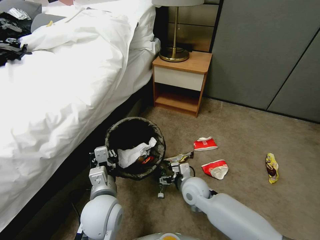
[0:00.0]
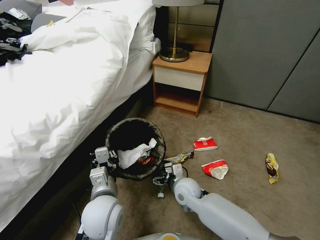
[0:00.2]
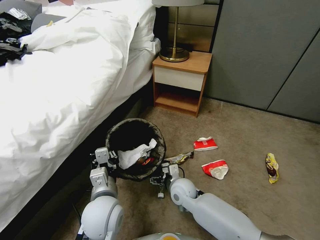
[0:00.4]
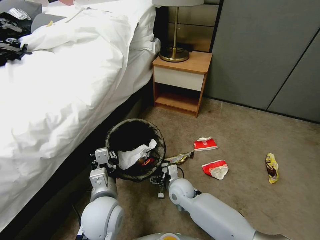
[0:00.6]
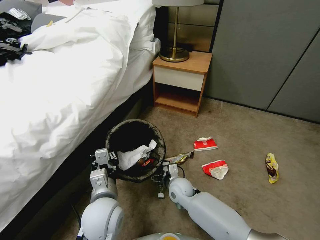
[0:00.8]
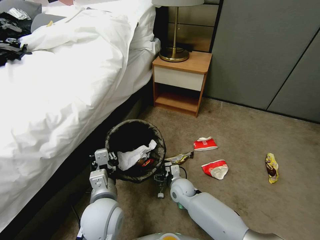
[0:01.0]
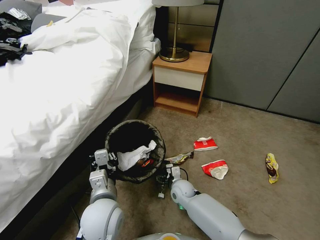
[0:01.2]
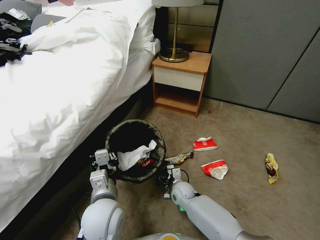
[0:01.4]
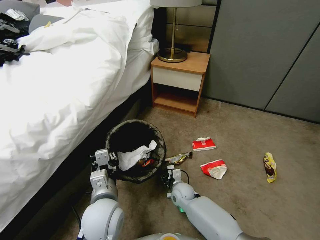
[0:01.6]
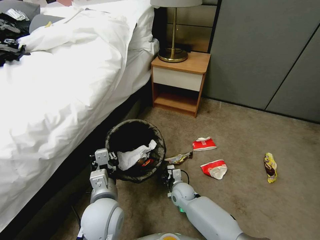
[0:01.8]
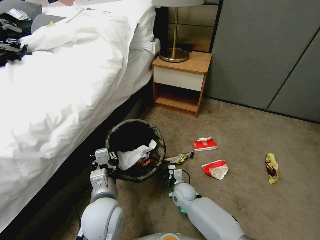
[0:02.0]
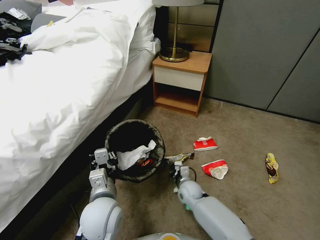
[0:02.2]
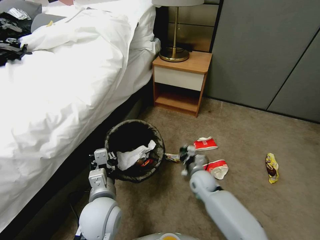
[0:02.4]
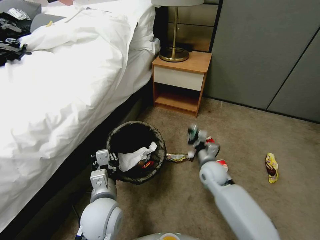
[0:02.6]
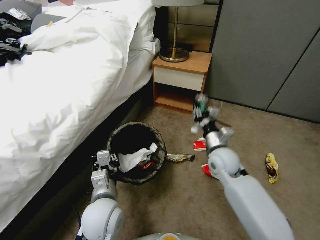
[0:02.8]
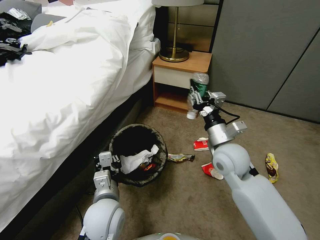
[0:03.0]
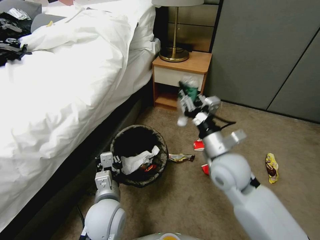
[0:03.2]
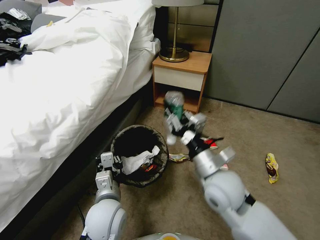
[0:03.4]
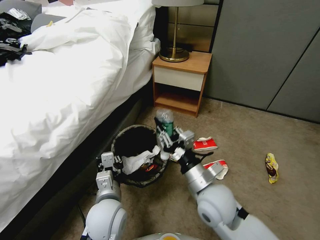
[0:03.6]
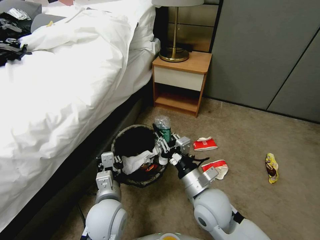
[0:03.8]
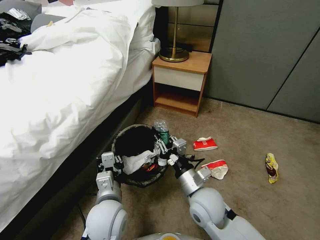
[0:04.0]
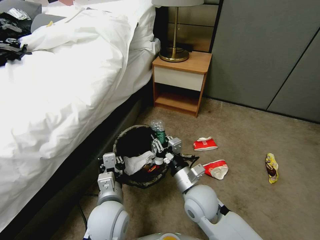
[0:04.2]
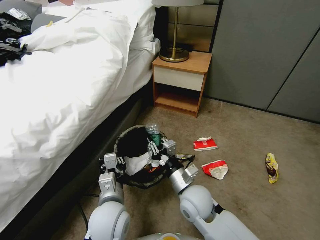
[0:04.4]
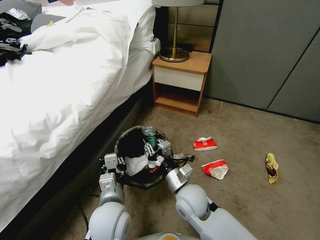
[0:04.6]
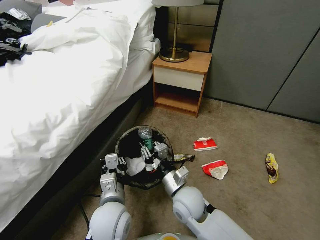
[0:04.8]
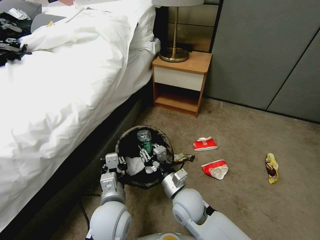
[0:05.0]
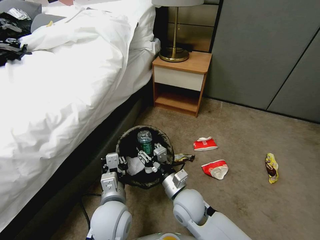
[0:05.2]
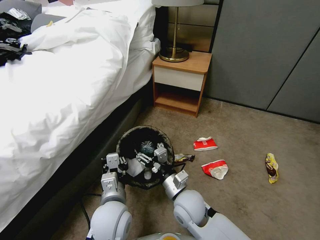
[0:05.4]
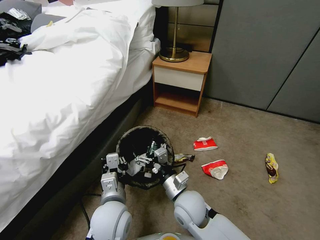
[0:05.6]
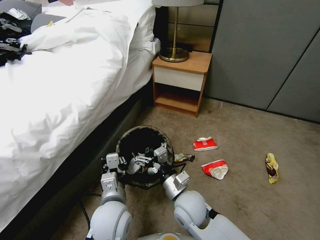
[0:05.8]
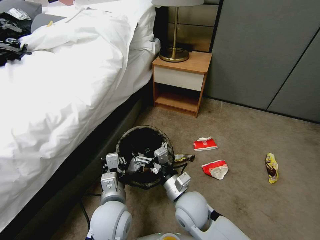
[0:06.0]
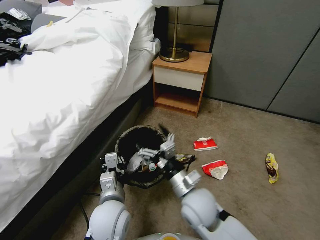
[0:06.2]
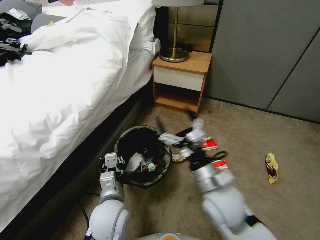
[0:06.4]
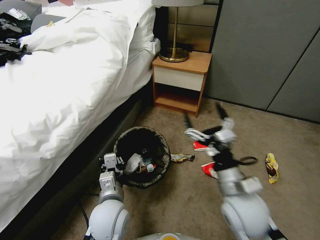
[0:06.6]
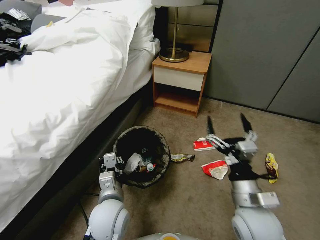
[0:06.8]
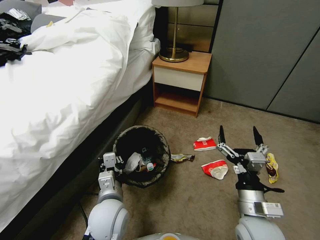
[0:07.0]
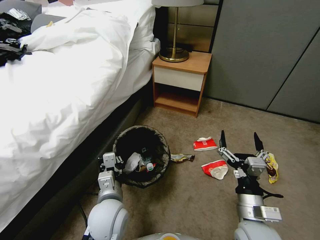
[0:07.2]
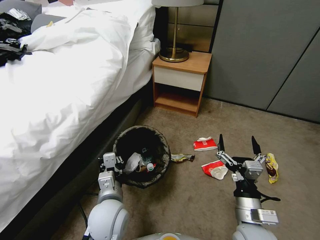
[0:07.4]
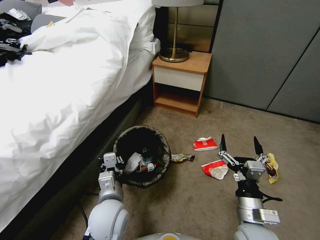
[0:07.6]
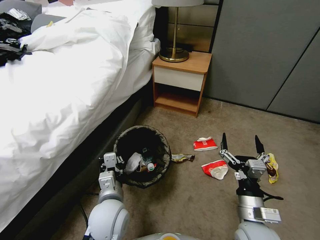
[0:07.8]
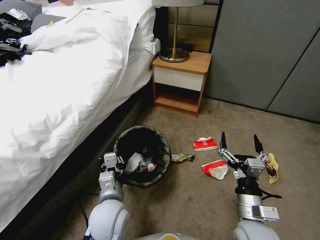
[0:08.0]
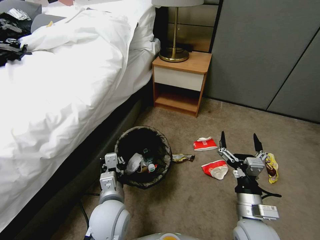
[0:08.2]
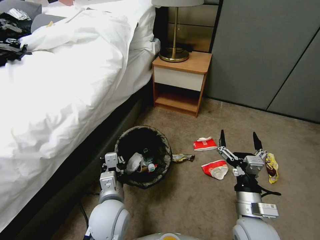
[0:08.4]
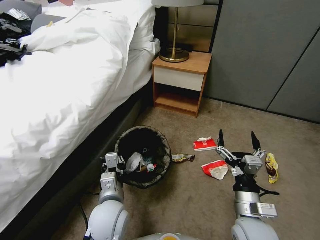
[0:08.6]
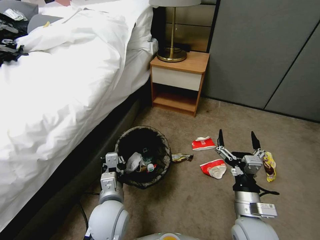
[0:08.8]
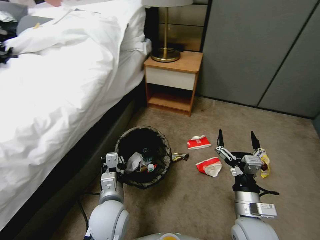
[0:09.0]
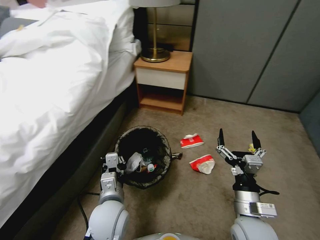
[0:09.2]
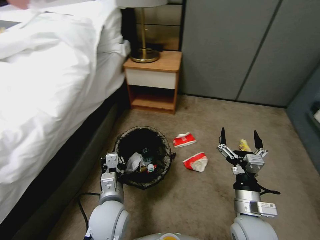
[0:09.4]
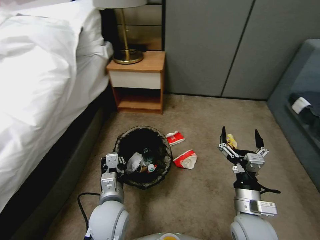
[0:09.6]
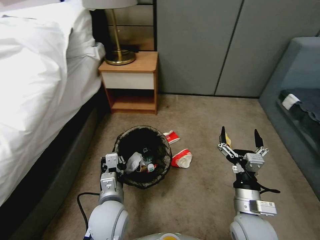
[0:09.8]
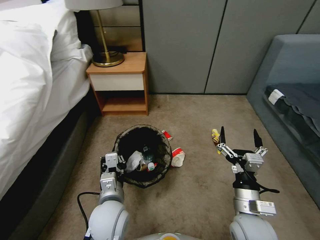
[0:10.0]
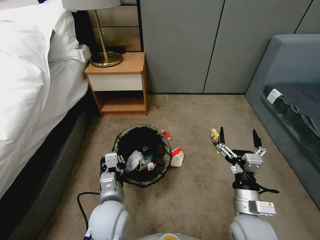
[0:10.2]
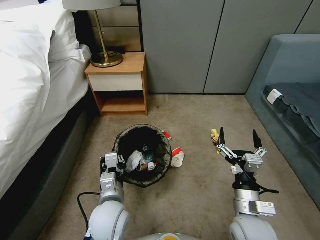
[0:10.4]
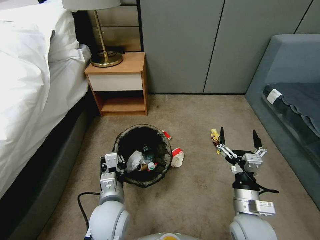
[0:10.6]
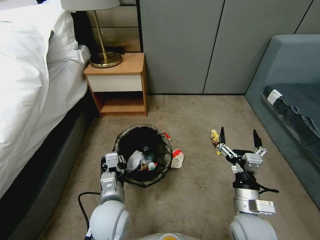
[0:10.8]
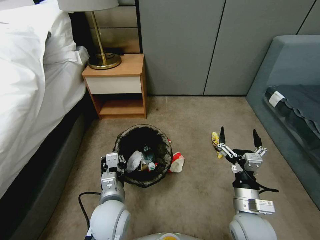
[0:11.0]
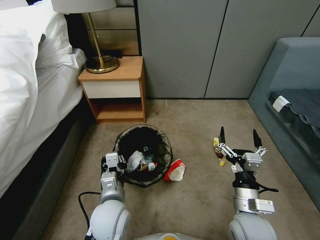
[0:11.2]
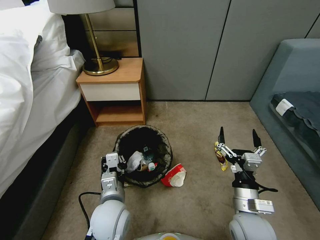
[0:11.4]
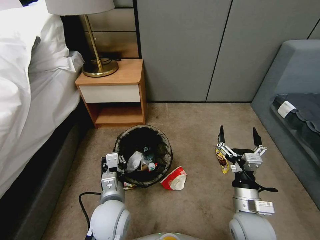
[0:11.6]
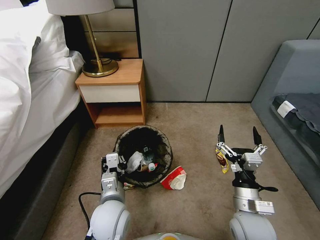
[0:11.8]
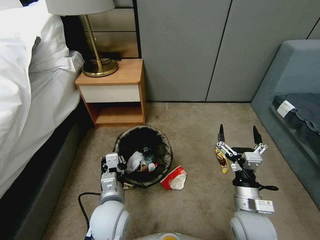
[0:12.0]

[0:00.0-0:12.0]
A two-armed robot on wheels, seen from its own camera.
Task of the whole recording: Pick up the trash bin, then pick up the garbage from the floor and place it into the trash bin.
0:00.0 to 0:01.6: The right gripper moves downward, approximately 10 cm, and closes up.
0:01.6 to 0:03.0: The right gripper goes approximately 30 cm upward.
0:03.0 to 0:04.4: The right gripper travels downward, to the left and backward by about 15 cm.
0:04.4 to 0:06.0: The right gripper opens its fingers.
0:06.0 to 0:07.6: The right gripper moves to the right and backward, approximately 15 cm.

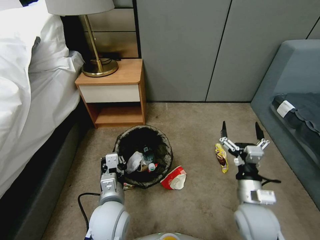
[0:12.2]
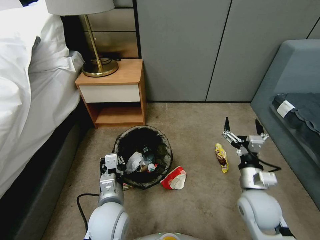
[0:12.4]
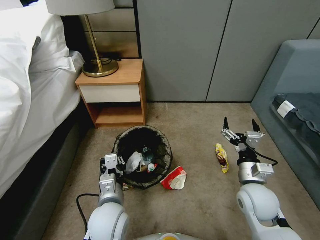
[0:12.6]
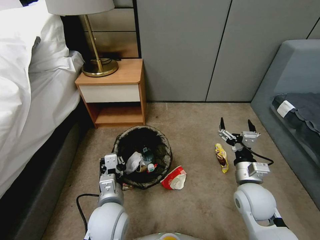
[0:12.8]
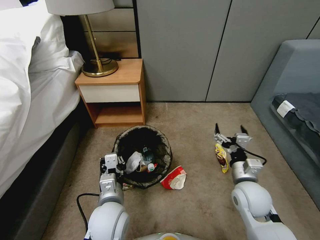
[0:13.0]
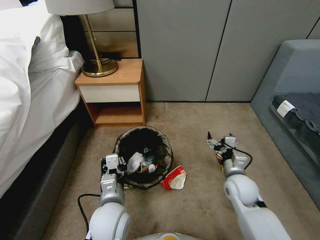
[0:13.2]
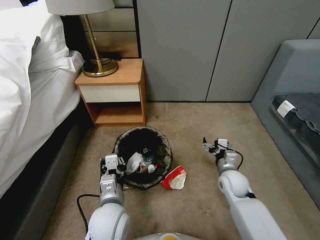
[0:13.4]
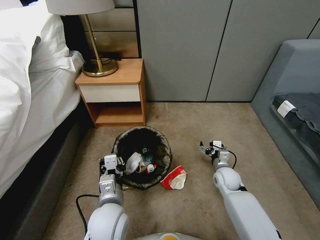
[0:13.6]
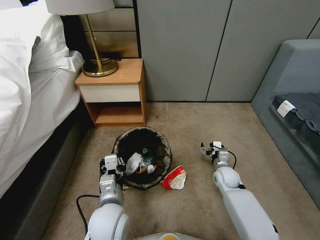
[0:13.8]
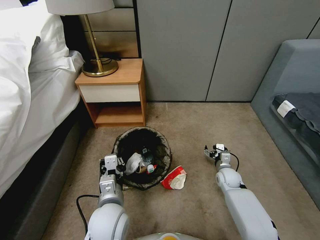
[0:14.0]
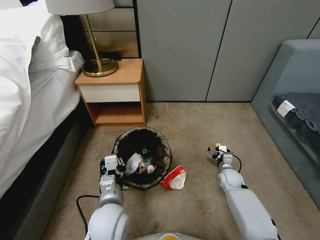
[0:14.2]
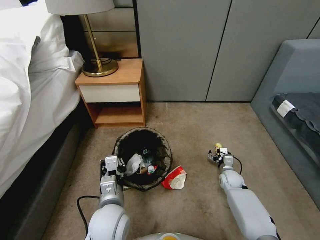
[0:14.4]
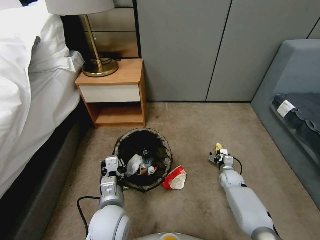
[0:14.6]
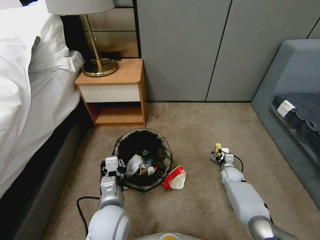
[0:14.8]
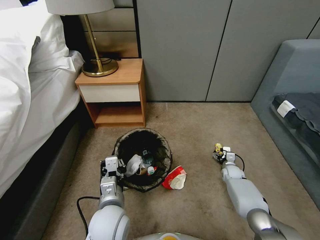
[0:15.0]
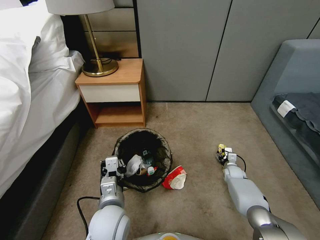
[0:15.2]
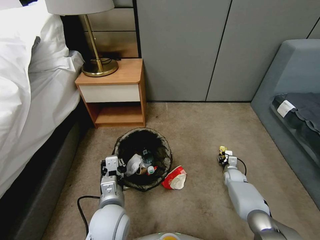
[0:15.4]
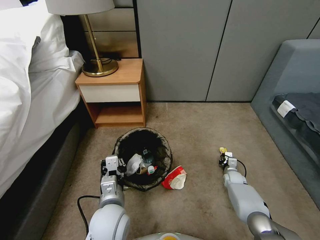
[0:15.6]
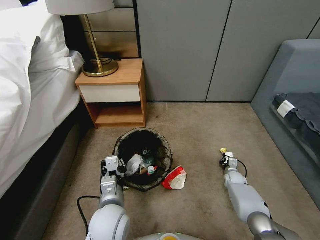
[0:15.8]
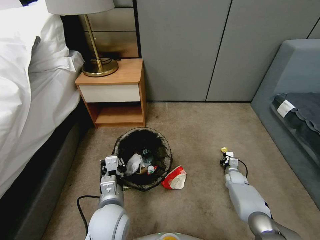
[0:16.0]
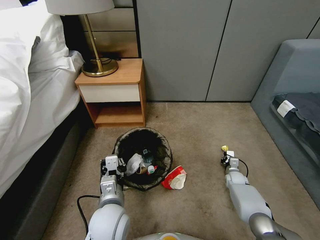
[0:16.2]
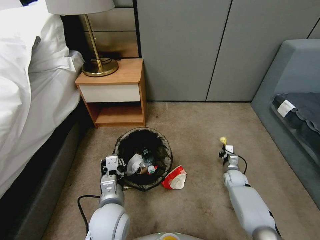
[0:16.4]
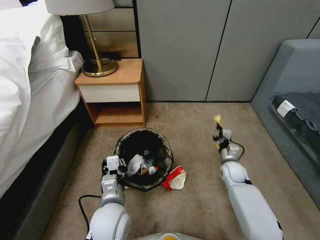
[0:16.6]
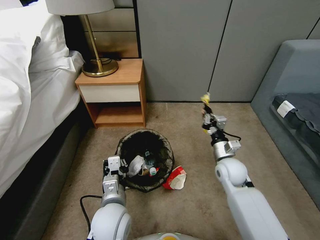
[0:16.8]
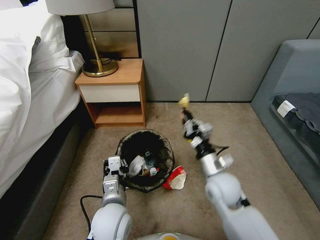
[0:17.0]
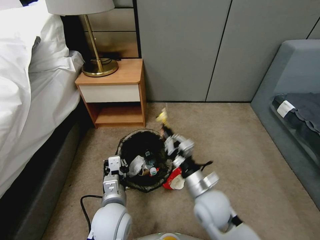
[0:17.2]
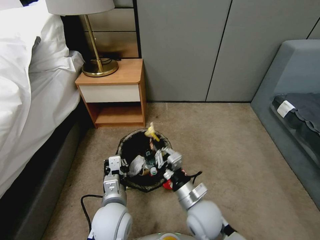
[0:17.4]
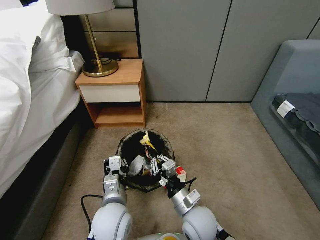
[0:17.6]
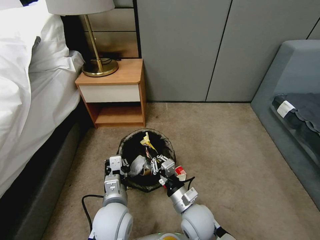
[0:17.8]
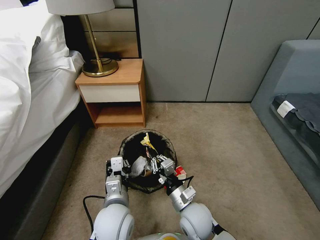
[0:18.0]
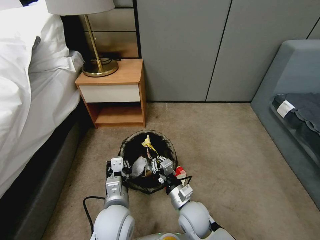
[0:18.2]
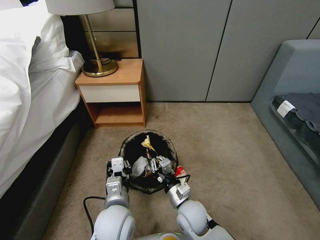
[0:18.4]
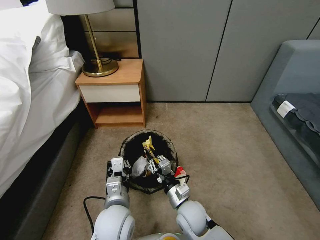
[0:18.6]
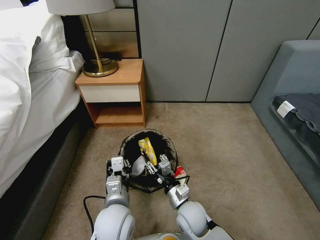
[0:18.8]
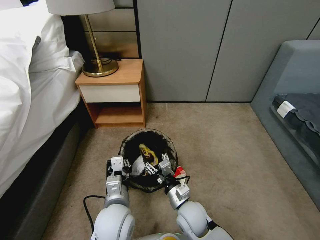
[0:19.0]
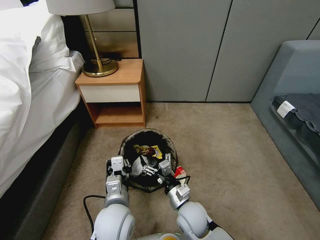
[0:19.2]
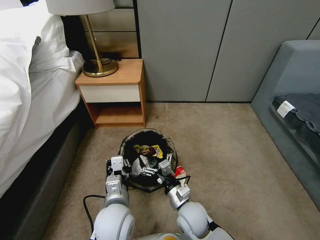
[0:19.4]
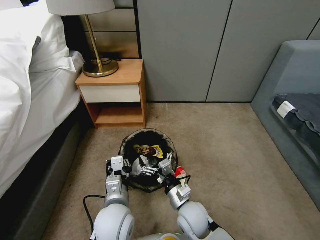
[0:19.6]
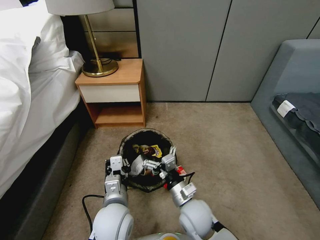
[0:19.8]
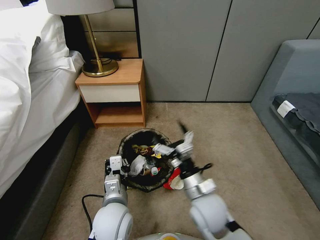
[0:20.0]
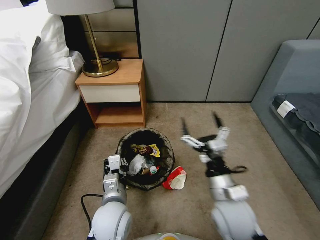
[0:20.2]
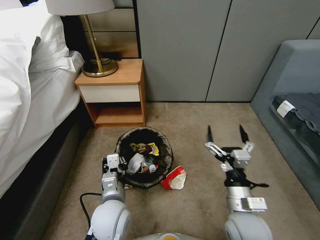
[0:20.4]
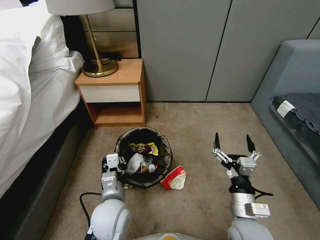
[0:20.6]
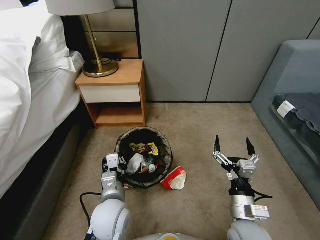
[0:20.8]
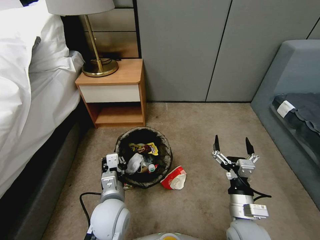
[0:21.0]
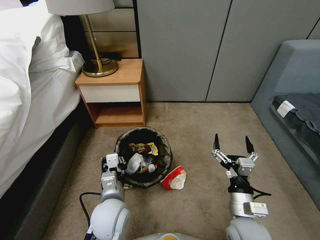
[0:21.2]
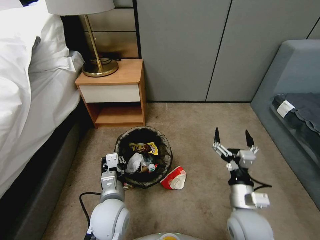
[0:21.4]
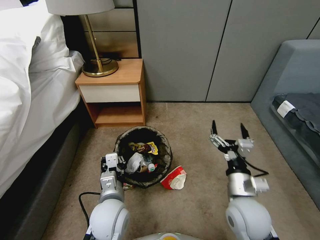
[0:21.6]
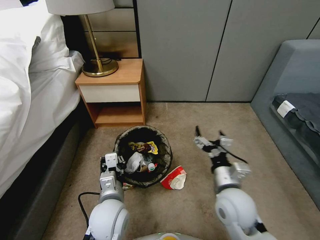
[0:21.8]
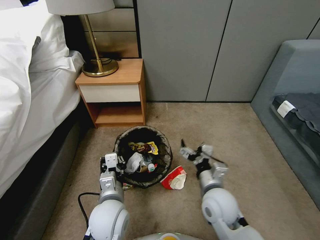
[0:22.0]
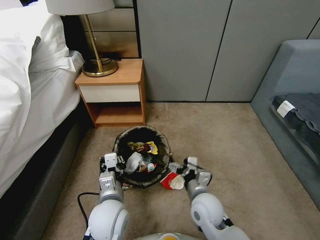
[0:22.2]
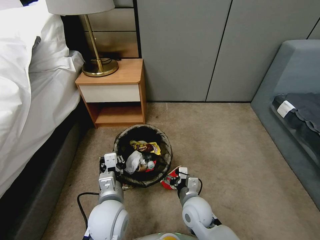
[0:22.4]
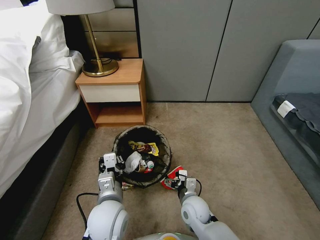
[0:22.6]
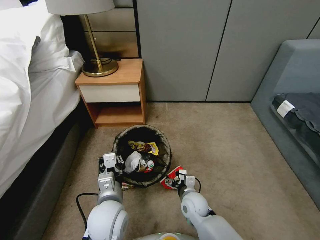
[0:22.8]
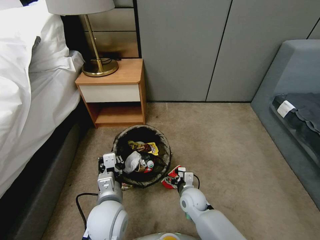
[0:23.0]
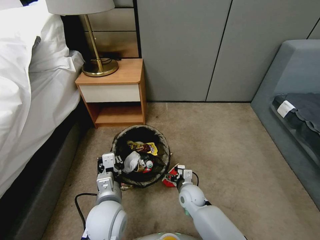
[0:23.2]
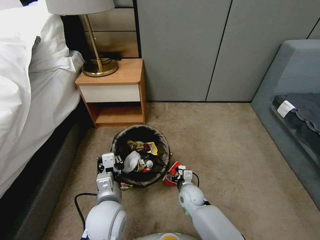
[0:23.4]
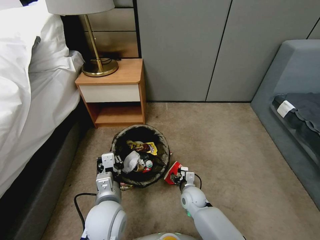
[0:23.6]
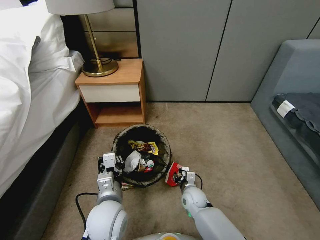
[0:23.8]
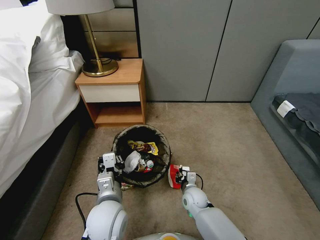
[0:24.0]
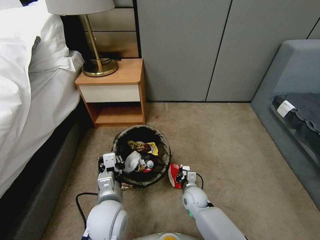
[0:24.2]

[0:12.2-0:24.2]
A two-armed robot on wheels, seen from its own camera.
Task of the whole recording: Pick up the trash bin, then pick up the garbage from the floor and place it into the trash bin.
0:12.2 to 0:13.8: The right gripper is displaced forward and downward by roughly 25 cm.
0:13.8 to 0:15.2: The right gripper travels downward and to the right by some 15 cm.
0:15.2 to 0:16.6: The right gripper shifts about 15 cm upward and to the left, and closes.
0:16.6 to 0:18.2: The right gripper shifts roughly 25 cm to the left and backward.
0:18.2 to 0:19.8: The right gripper opens its fingers.
0:19.8 to 0:21.2: The right gripper heads to the right and backward, covering approximately 15 cm.
0:21.2 to 0:22.6: The right gripper shifts about 20 cm downward, to the left and forward.
0:22.6 to 0:24.2: The right gripper travels downward and forward by some 10 cm, and closes its fingers.
